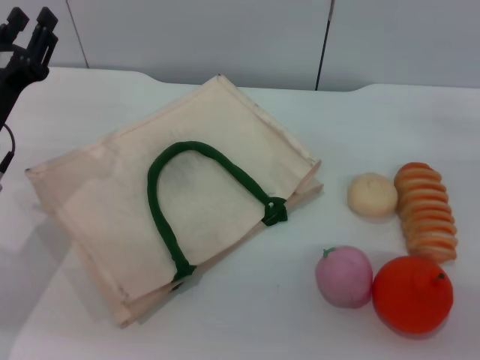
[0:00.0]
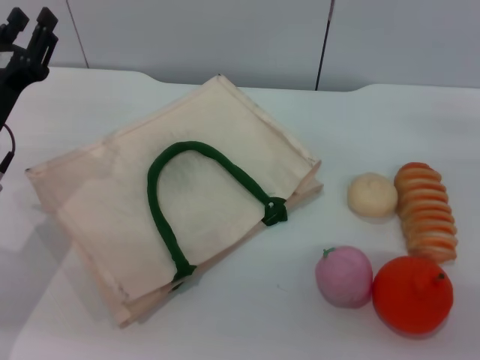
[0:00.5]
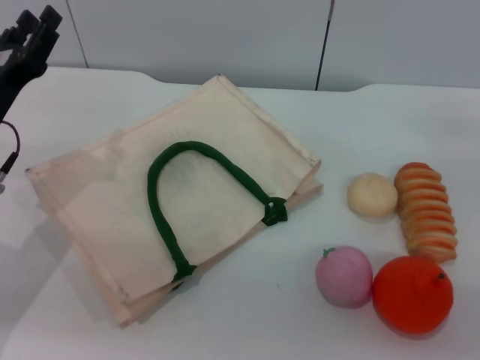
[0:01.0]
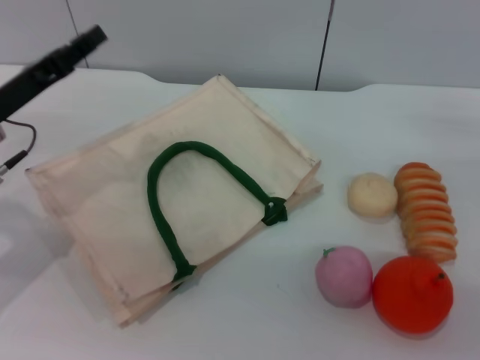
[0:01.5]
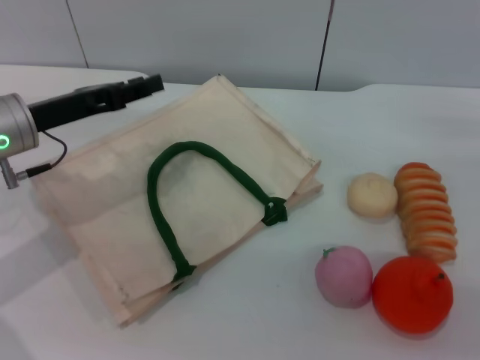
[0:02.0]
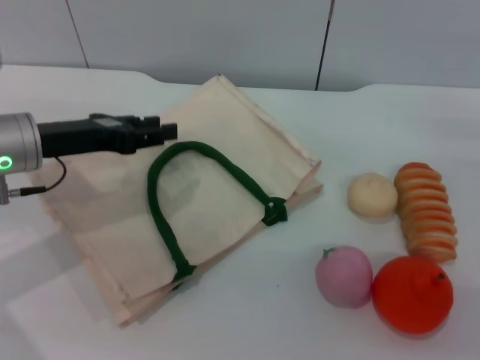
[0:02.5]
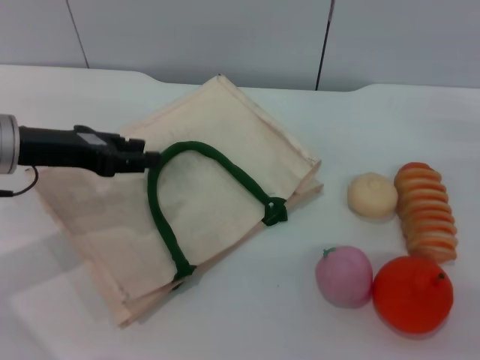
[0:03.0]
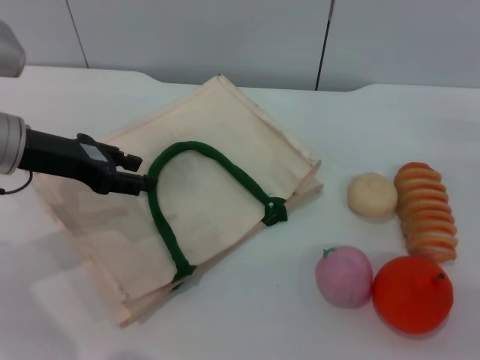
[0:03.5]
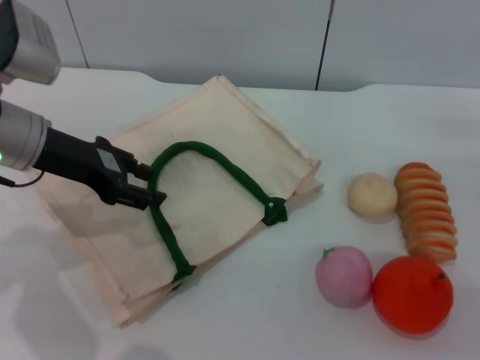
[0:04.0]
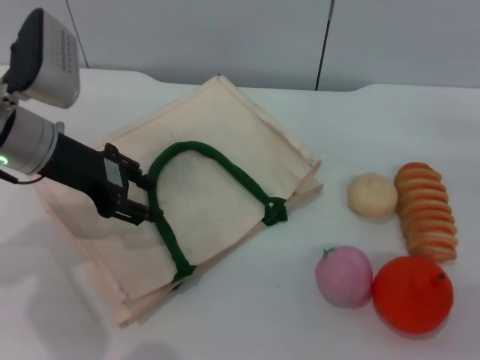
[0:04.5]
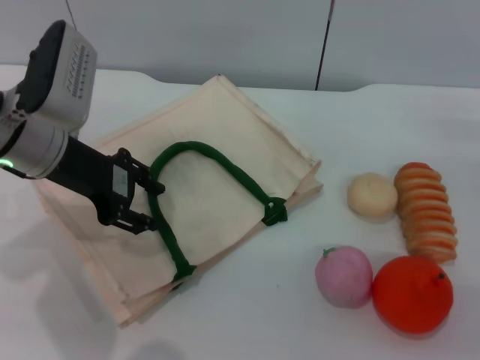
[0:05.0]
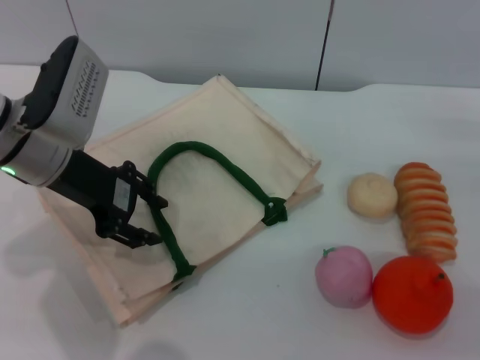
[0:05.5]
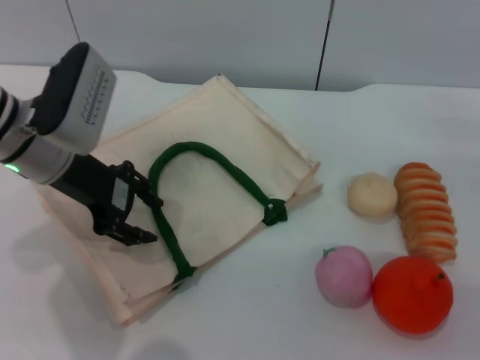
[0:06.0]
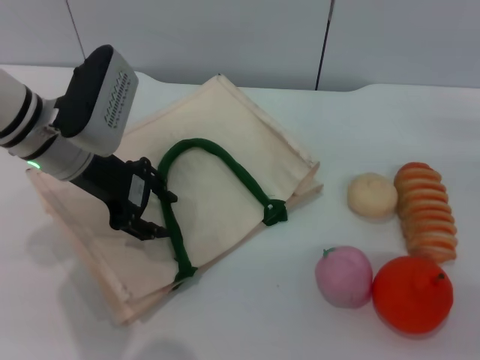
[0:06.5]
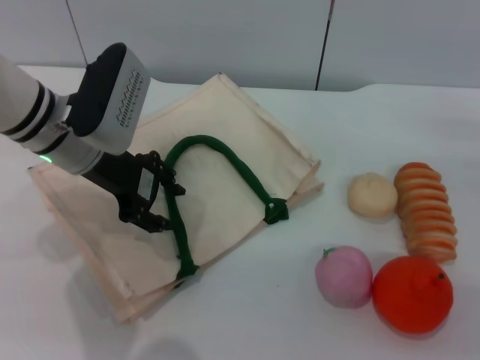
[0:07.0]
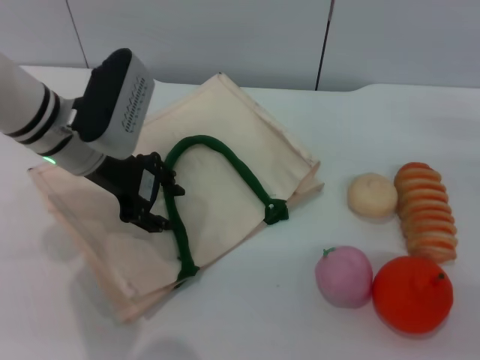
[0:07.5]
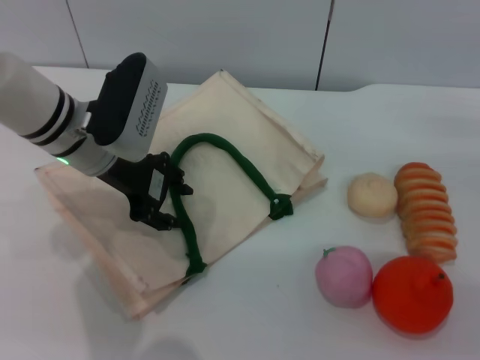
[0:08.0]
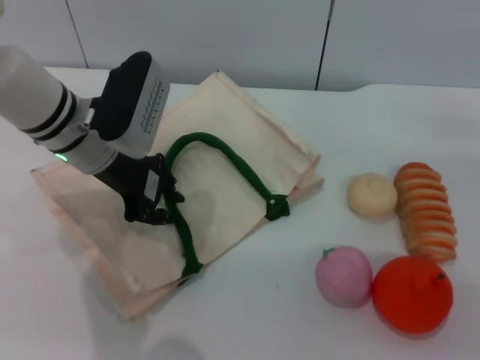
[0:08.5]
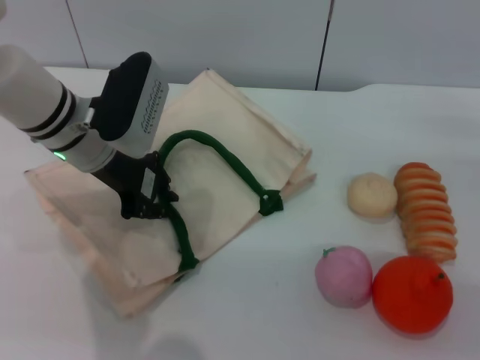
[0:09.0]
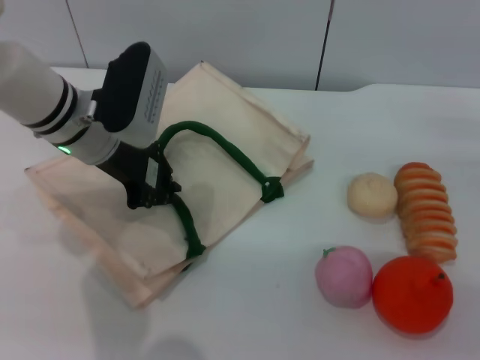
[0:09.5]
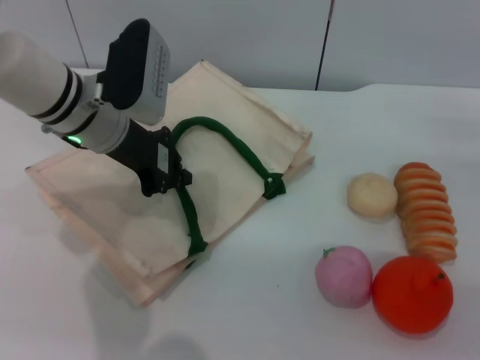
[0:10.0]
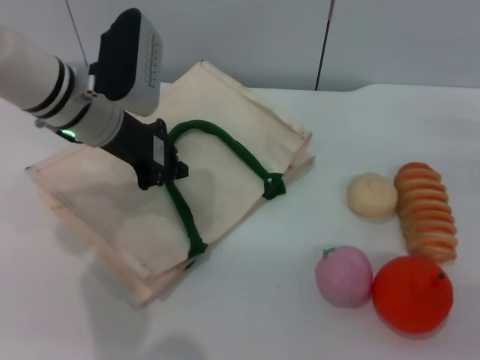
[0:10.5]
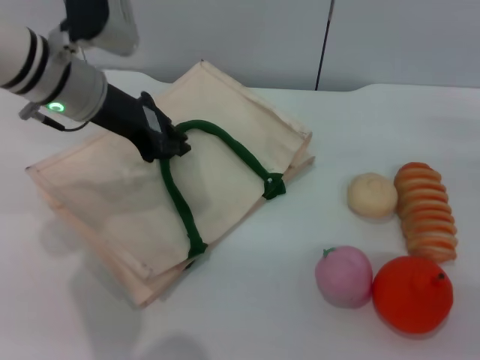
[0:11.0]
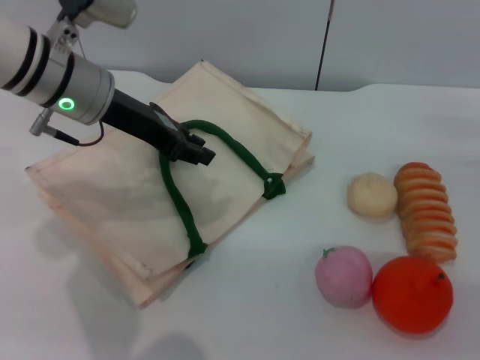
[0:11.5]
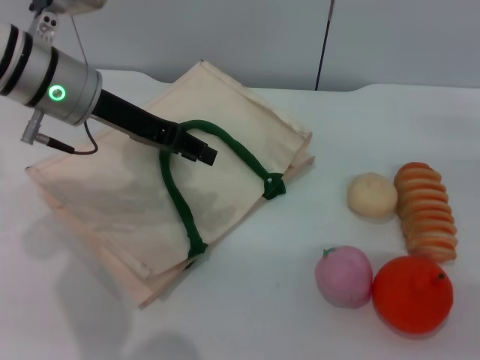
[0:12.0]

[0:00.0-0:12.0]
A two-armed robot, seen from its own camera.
Task of the whole recording: pick up the orange from the table and place it in the white handbag.
0:00.0 to 0:02.0: The left gripper changes place by about 5 cm.
0:06.0 to 0:08.0: There are only small adjustments of the grippers.
0:08.0 to 0:10.0: The left gripper closes up.
0:10.0 to 0:12.0: The left gripper ends up some 5 cm from where it was, and opens its fingers.

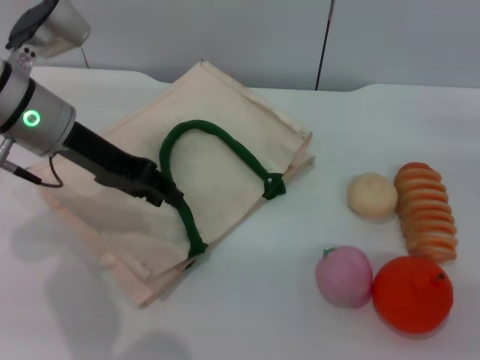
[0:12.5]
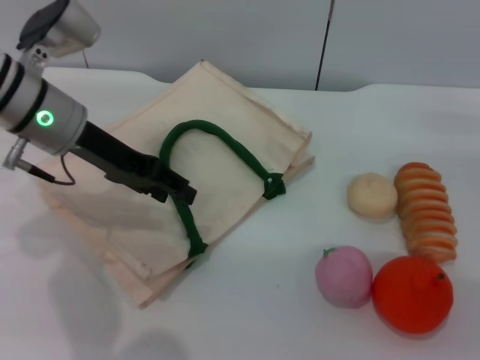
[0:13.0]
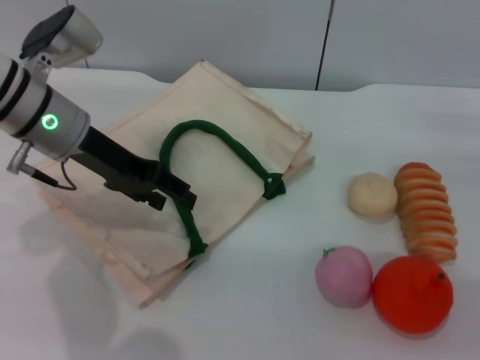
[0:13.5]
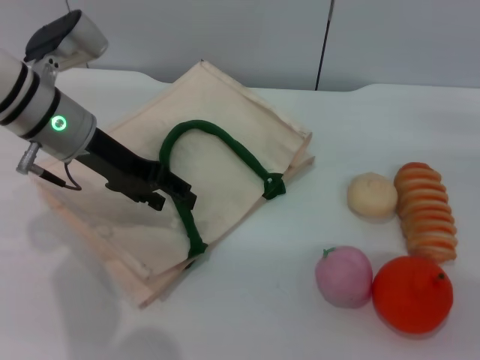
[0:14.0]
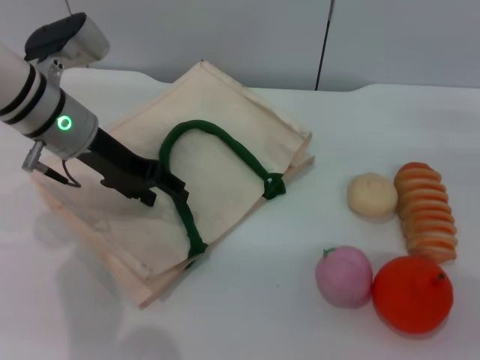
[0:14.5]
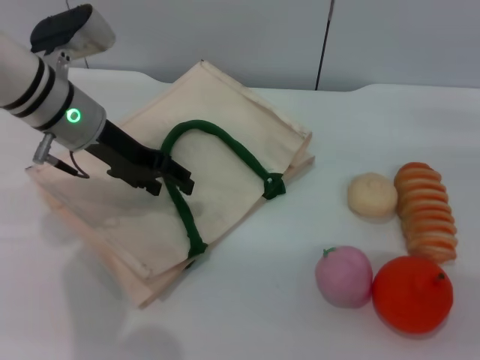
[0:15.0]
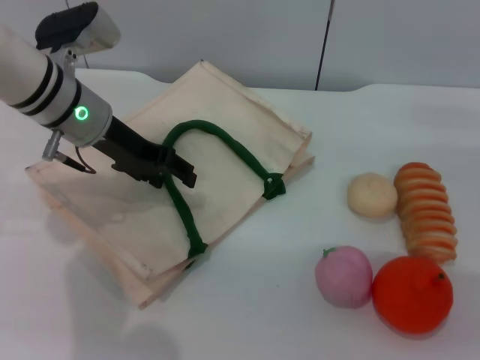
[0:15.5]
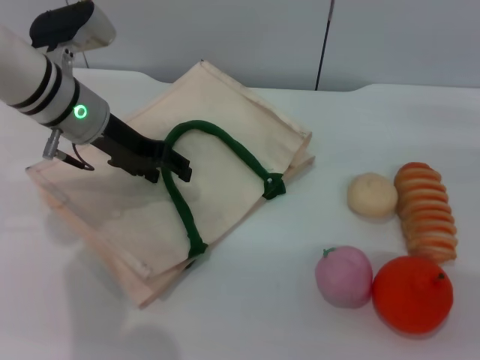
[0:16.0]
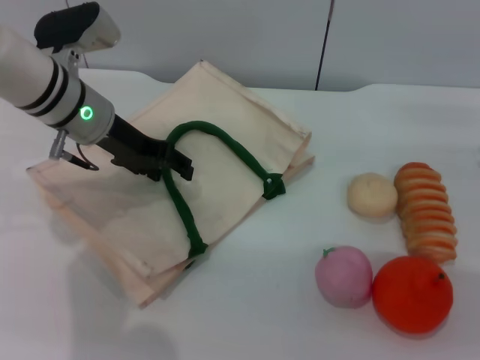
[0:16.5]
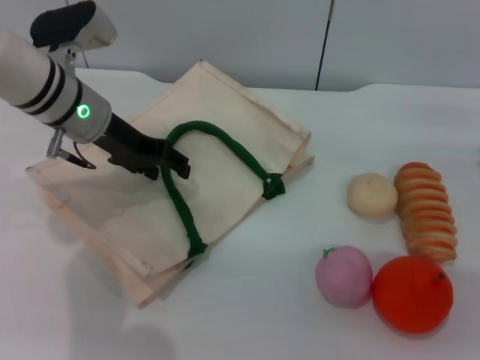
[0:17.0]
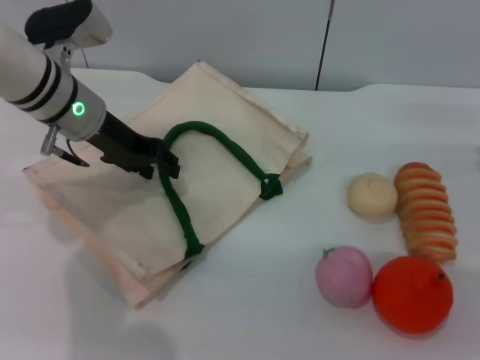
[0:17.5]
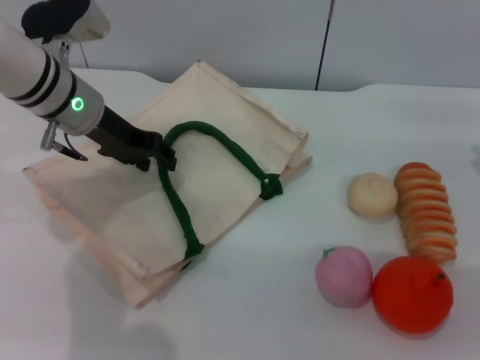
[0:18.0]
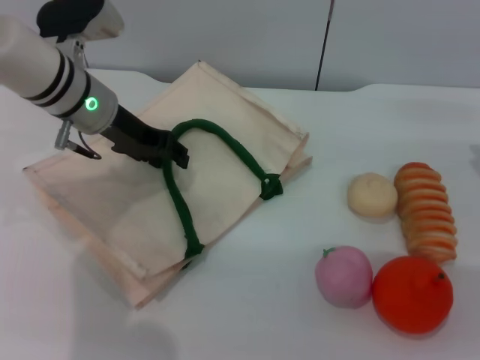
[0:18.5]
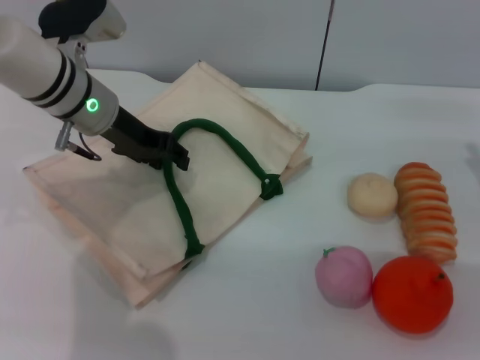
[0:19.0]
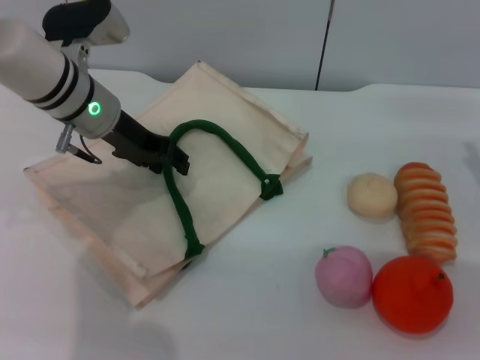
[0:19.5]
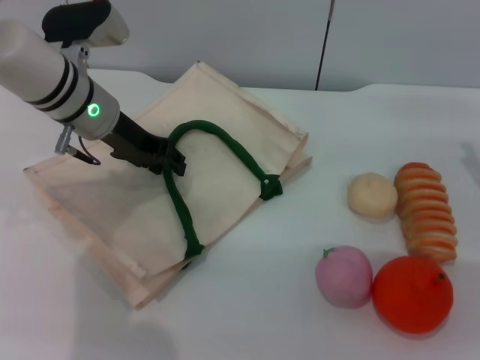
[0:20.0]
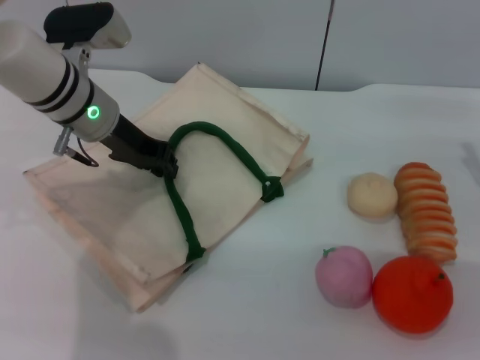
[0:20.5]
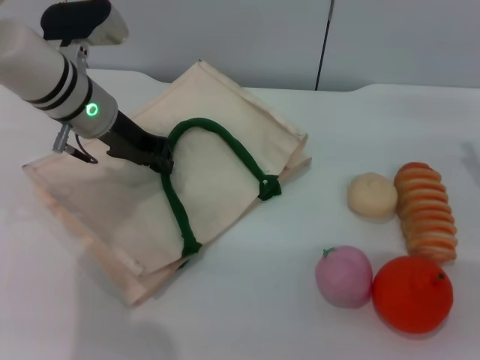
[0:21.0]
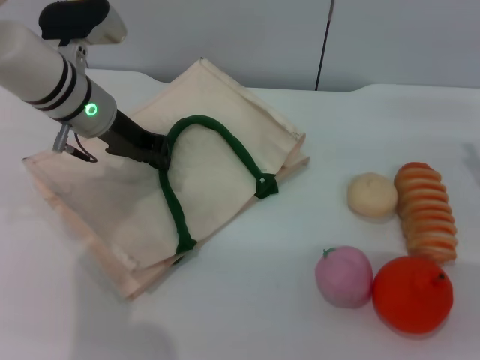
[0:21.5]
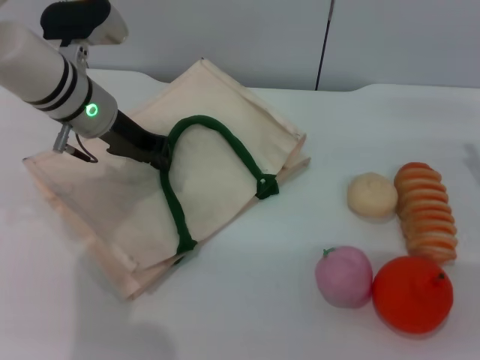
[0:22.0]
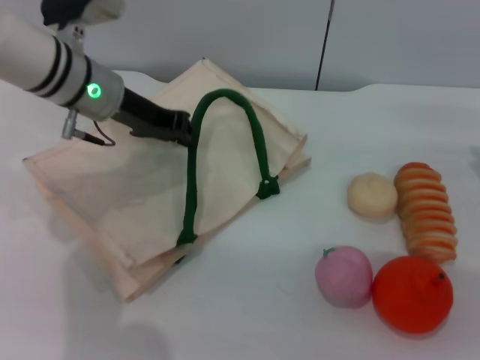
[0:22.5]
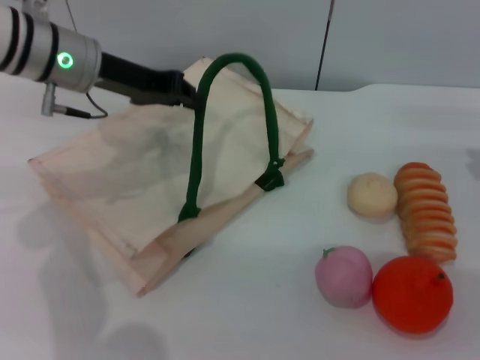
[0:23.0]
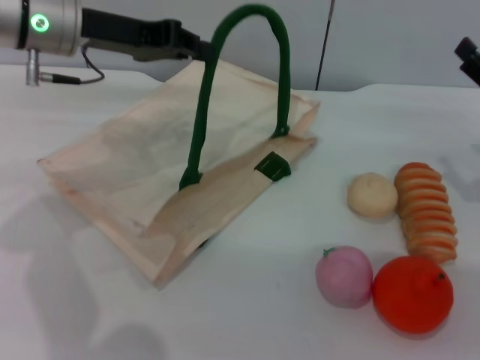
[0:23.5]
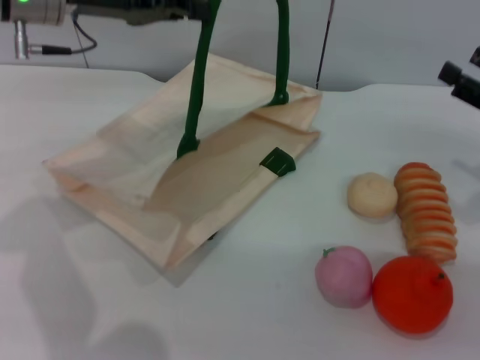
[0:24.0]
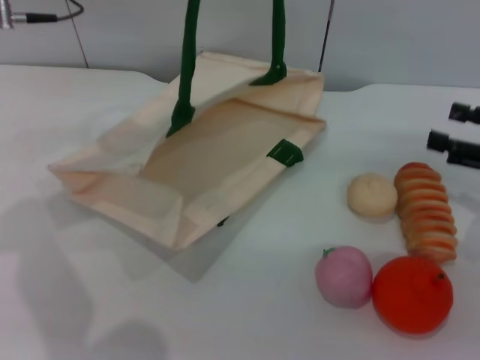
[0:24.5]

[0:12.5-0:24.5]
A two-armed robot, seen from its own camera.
Task of the whole recording: pick up the orange from the table and place it in the white handbag.
Step, 0:12.5 to 0:24.0: Lift the woven bag with the left gripper to open it.
0:12.5 to 0:14.5: The left gripper opens its fingers.
0:14.5 to 0:16.5: The grippers stay close to where they were, moving slightly.
0:16.5 to 0:18.5: Both grippers stay about where they are.
0:18.5 to 0:20.5: Both grippers stay about where they are.
0:20.5 to 0:22.5: The left gripper closes up.
0:22.5 to 0:24.5: The right gripper ends up some 5 cm from where it was; the left gripper goes roughly 10 cm upward.

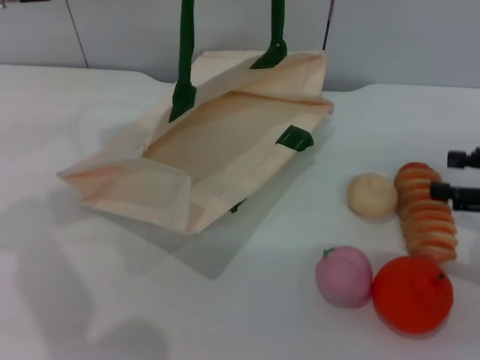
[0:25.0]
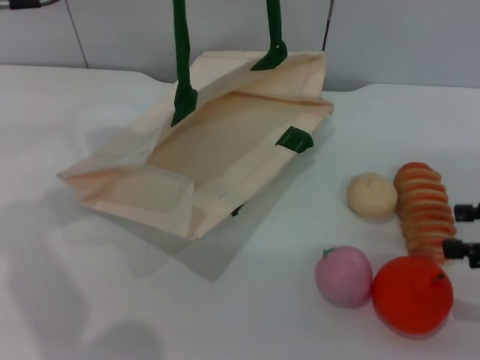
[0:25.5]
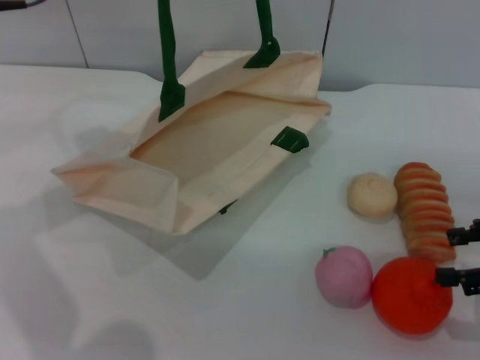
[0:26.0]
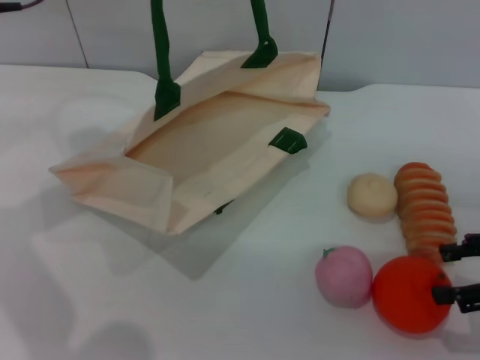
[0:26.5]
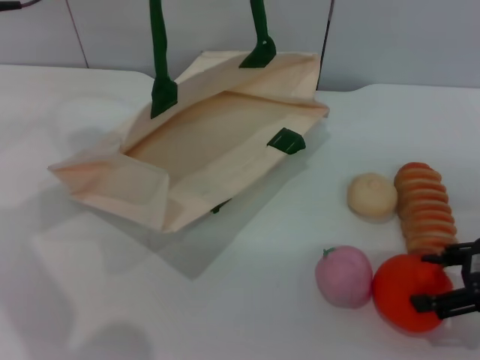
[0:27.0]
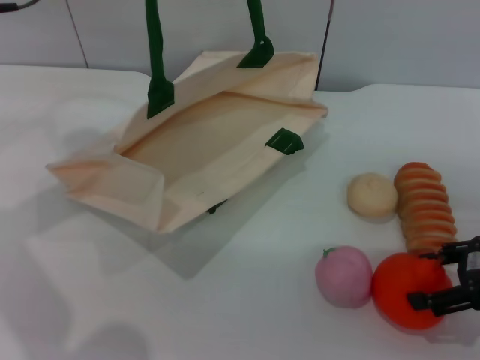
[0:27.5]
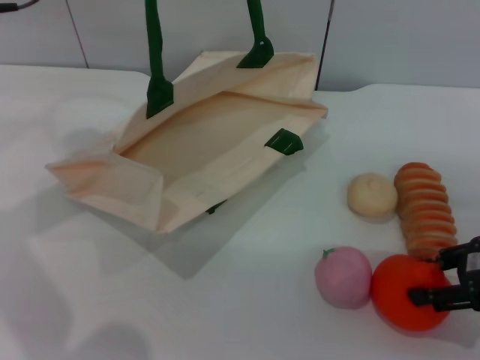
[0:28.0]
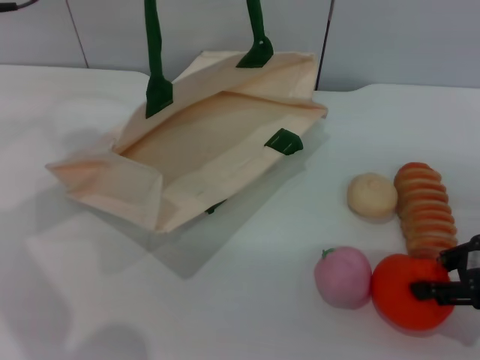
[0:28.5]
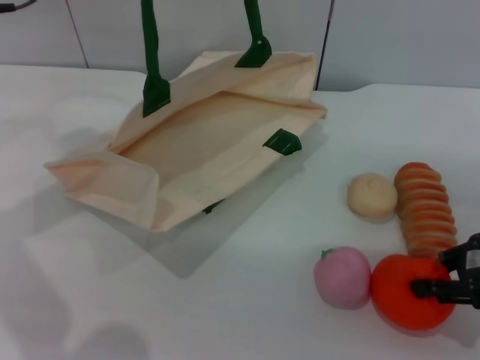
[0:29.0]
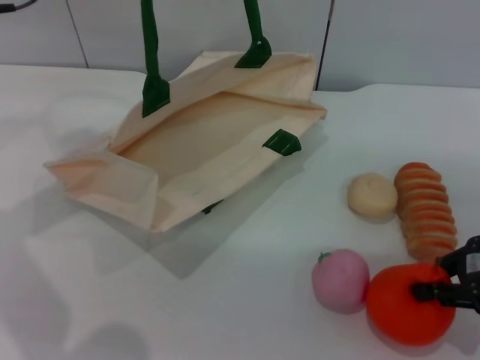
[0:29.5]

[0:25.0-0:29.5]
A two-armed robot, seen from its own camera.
Task of the whole recording: pick up the orange from the table and place it in the white handbag.
0:27.0 to 0:29.5: The right gripper closes up.
